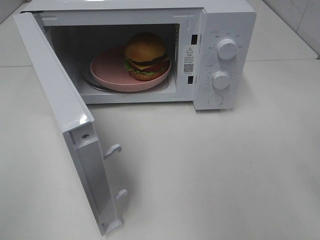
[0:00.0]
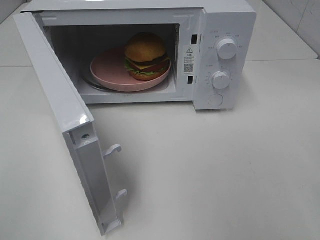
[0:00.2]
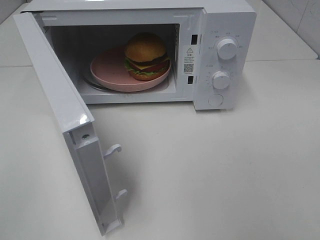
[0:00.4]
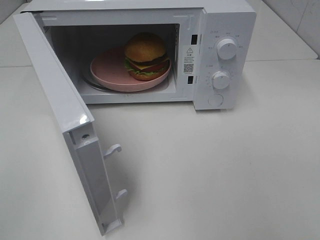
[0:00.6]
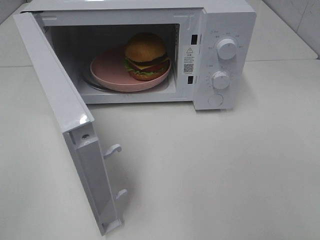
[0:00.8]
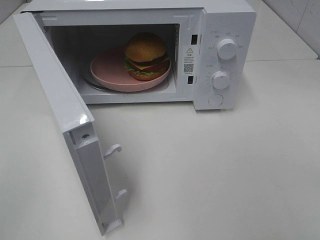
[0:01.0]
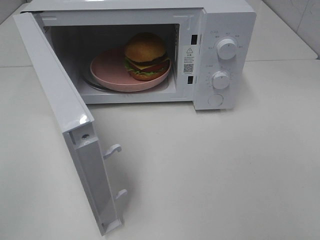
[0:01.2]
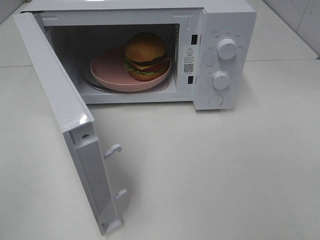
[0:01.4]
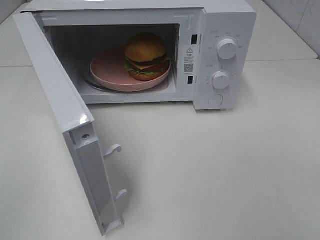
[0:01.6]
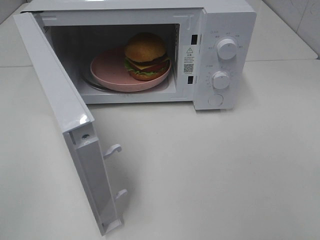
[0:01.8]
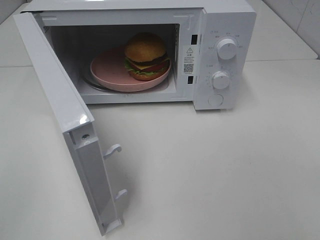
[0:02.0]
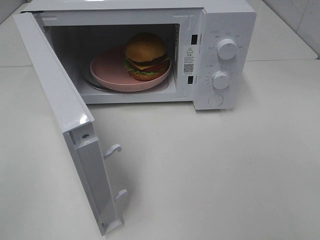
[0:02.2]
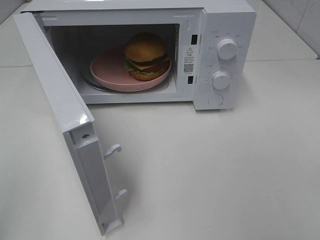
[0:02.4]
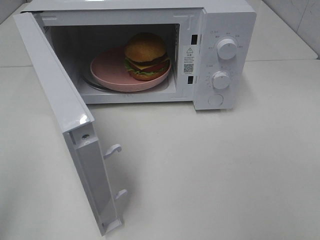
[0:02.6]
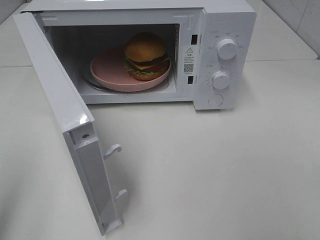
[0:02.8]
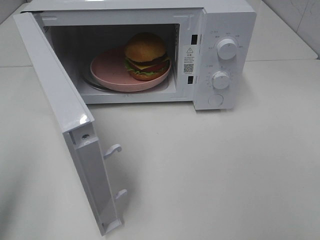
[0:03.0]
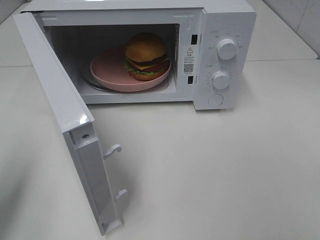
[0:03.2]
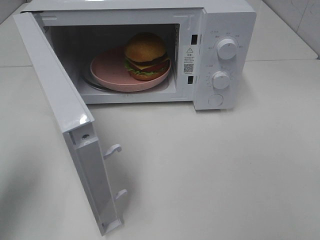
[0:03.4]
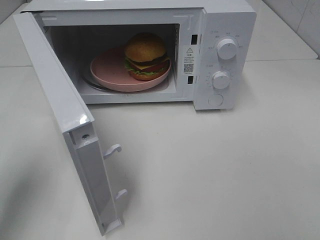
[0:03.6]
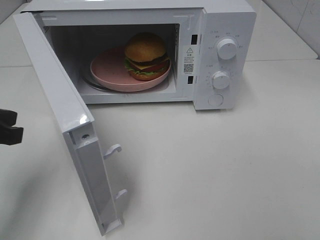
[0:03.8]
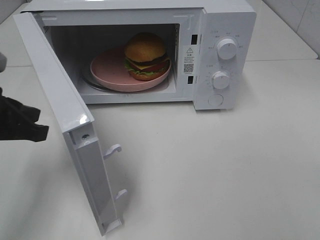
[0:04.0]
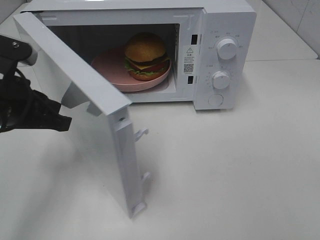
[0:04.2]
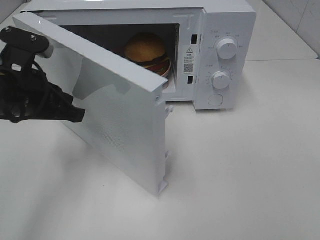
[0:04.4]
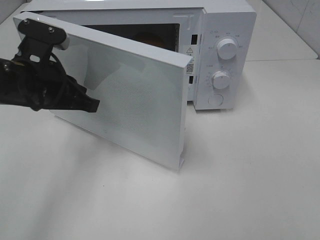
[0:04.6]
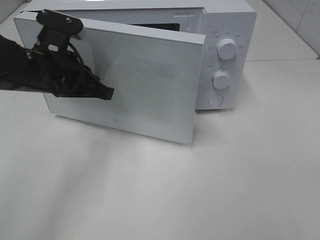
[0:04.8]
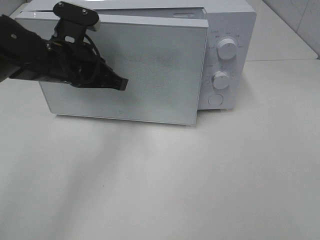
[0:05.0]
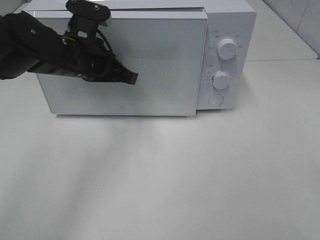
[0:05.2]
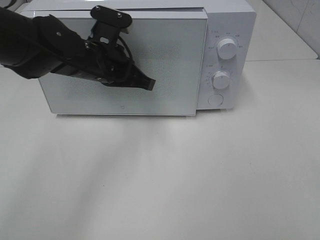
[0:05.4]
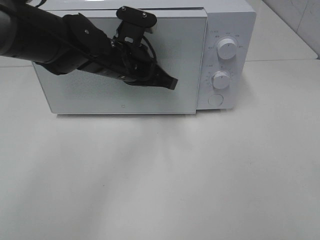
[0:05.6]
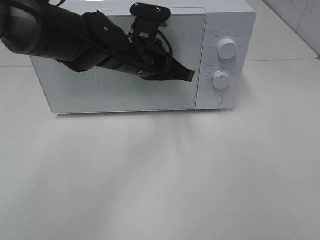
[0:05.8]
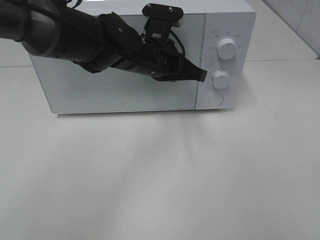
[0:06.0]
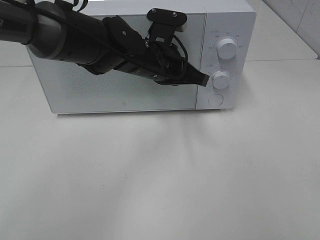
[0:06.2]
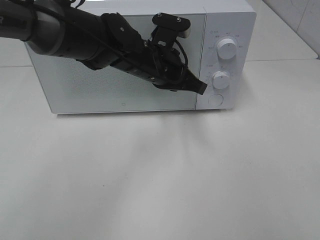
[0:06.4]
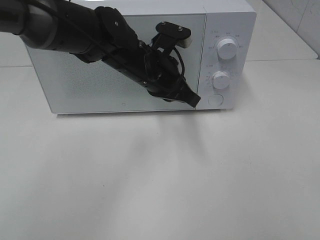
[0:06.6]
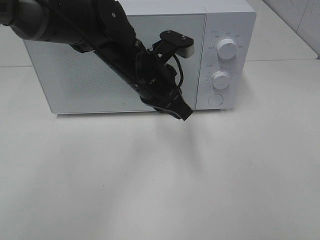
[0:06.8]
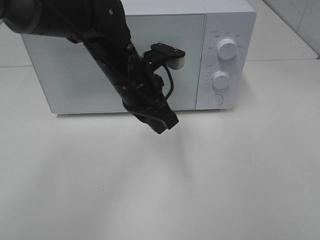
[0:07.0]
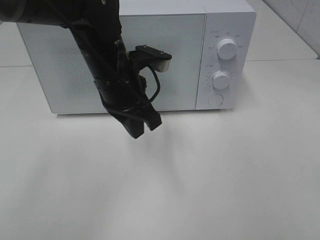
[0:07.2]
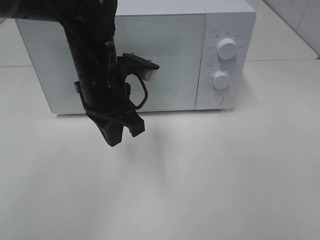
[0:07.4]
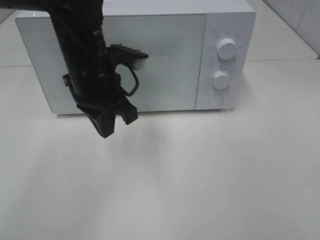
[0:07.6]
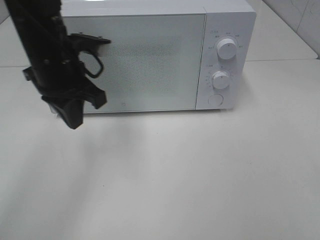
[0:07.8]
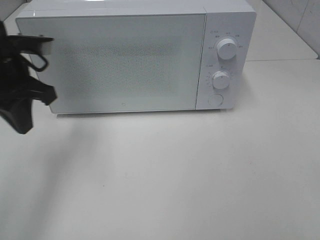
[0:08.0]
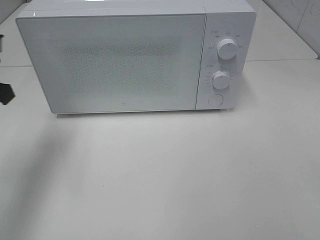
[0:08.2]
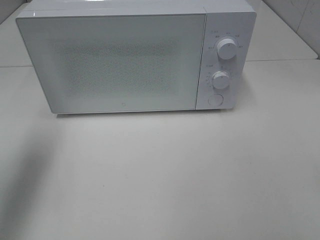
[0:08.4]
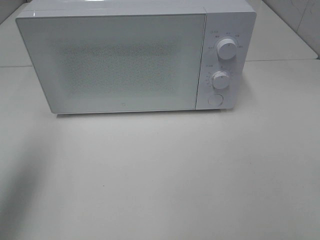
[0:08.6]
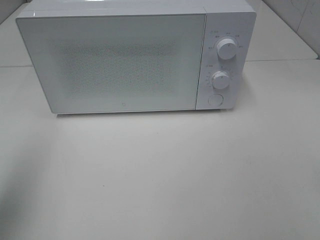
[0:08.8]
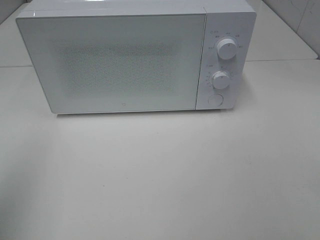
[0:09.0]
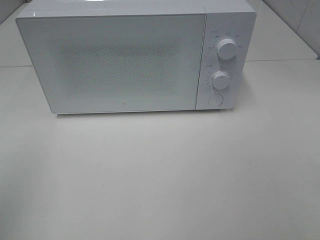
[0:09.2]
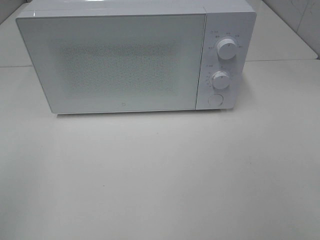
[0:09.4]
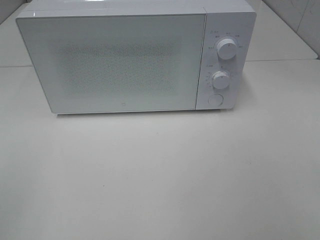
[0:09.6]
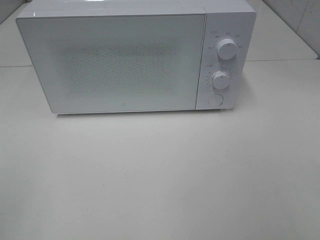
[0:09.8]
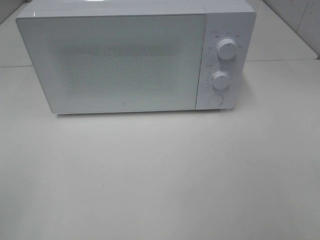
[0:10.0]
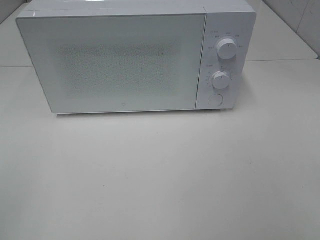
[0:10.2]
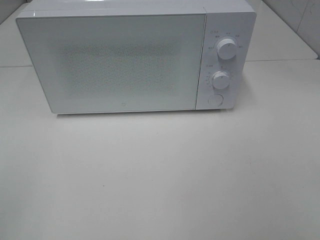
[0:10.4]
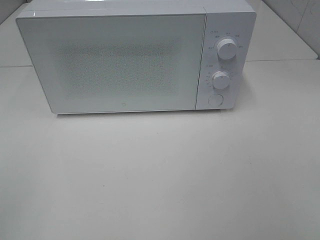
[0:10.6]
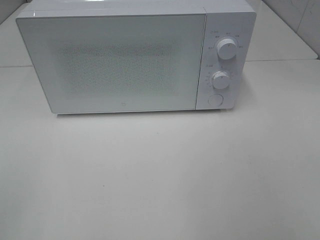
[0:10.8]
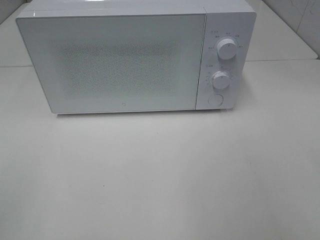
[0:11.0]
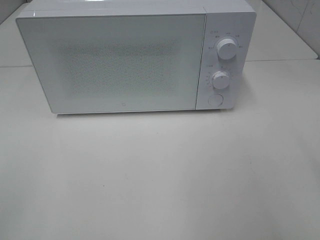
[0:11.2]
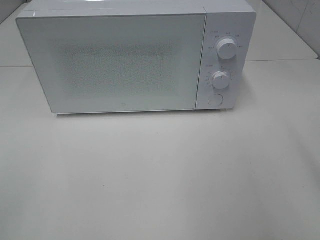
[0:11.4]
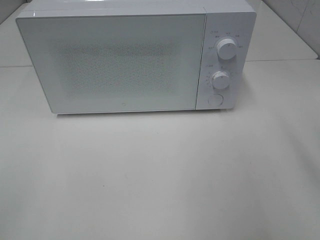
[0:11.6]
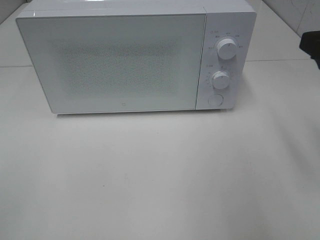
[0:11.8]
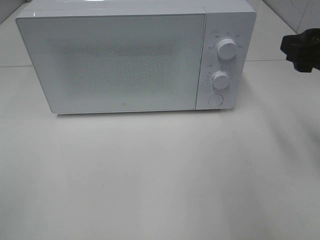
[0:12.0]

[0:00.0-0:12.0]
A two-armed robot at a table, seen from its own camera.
Task of the whole recording: Heat the burger.
Step, 0:00.0 to 0:06.4: Left hand: close the microwave door.
0:01.6 to 0:03.0: The left gripper moves forward, approximately 10 cm.
0:03.0 to 0:04.4: The left gripper is displaced forward, to the right and downward by some 20 cm.
0:04.4 to 0:06.0: The left gripper travels to the right and forward by roughly 20 cm.
0:06.0 to 0:07.6: The left gripper moves to the left and backward, roughly 10 cm.
0:07.6 to 0:09.0: The left gripper travels to the left, backward and upward by roughly 30 cm.
0:10.4 to 0:12.0: The right gripper heads forward, covering roughly 25 cm.

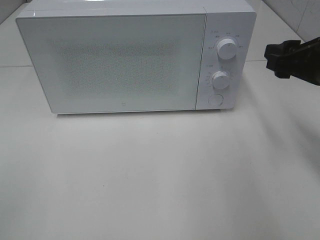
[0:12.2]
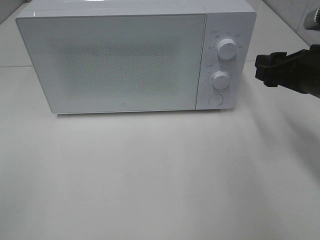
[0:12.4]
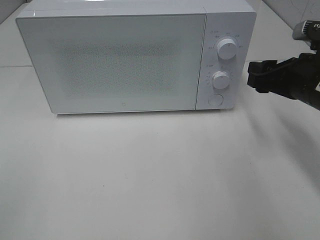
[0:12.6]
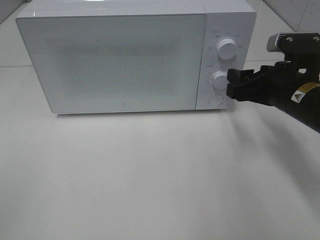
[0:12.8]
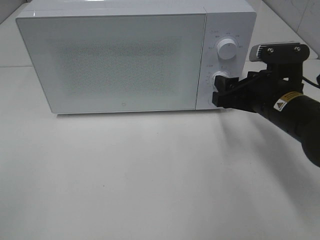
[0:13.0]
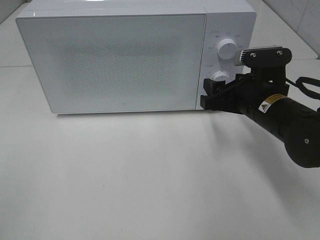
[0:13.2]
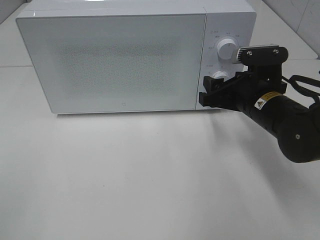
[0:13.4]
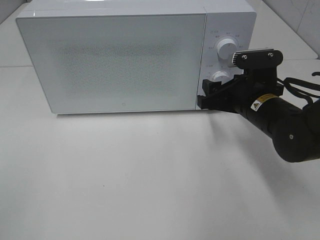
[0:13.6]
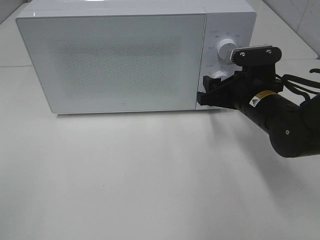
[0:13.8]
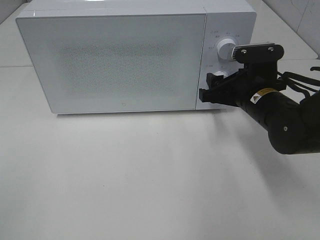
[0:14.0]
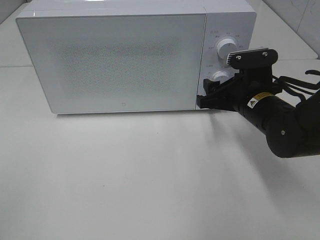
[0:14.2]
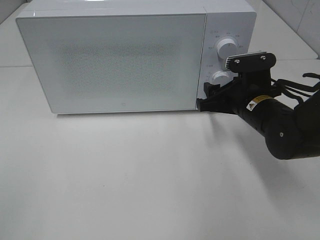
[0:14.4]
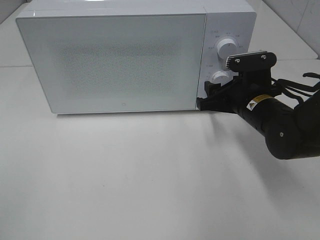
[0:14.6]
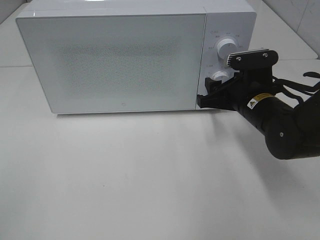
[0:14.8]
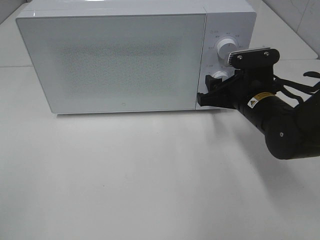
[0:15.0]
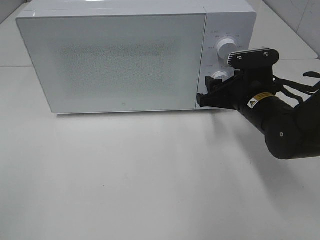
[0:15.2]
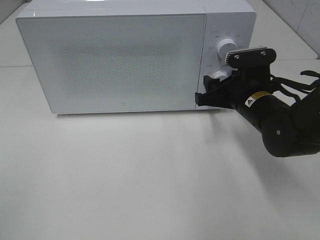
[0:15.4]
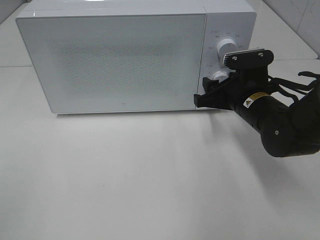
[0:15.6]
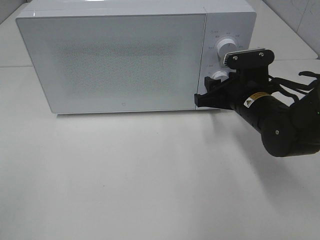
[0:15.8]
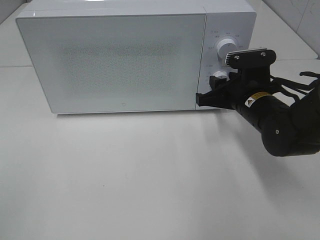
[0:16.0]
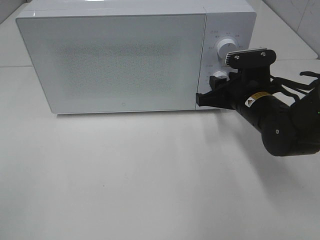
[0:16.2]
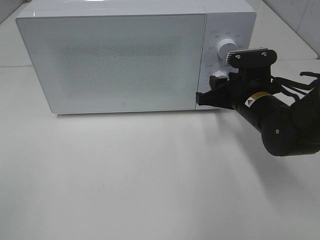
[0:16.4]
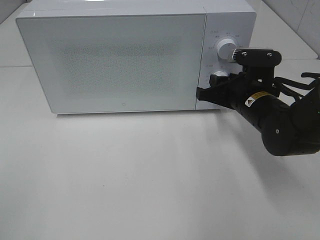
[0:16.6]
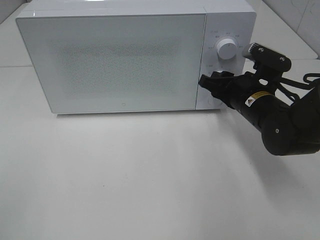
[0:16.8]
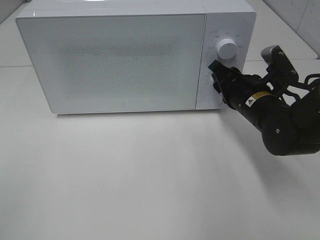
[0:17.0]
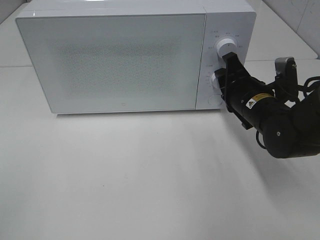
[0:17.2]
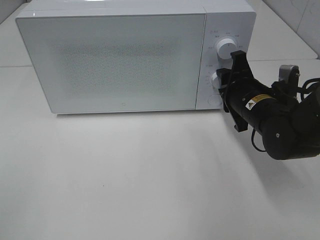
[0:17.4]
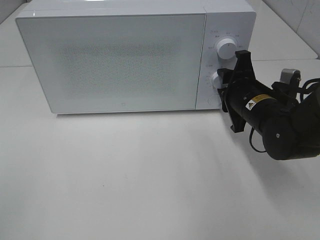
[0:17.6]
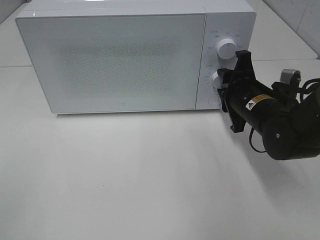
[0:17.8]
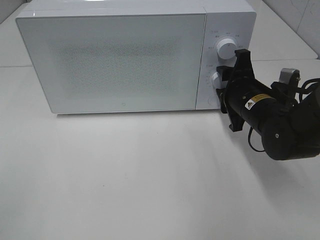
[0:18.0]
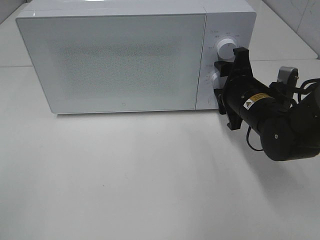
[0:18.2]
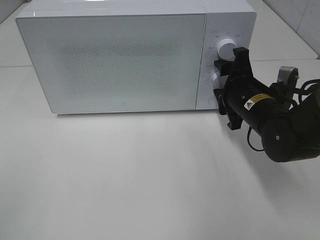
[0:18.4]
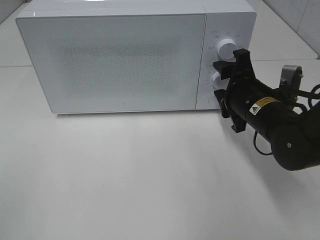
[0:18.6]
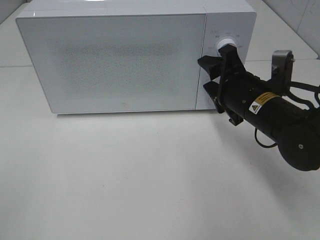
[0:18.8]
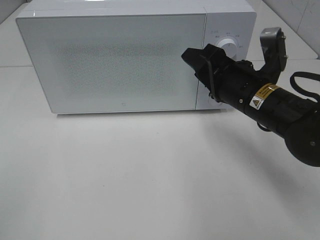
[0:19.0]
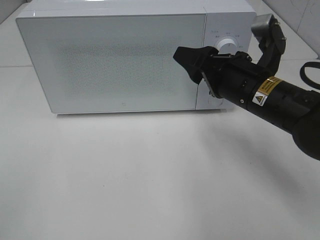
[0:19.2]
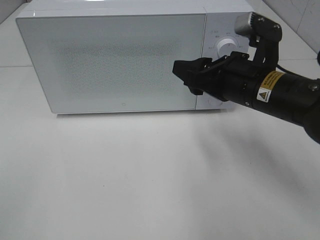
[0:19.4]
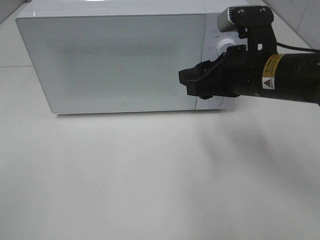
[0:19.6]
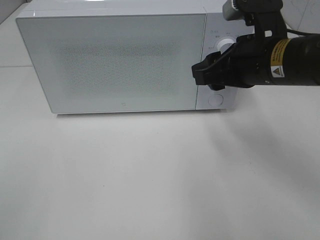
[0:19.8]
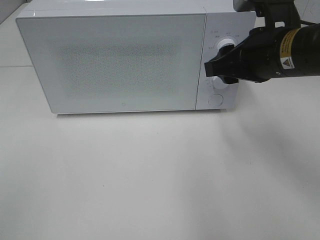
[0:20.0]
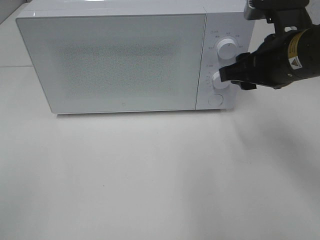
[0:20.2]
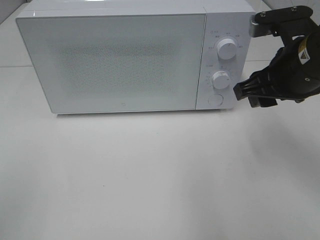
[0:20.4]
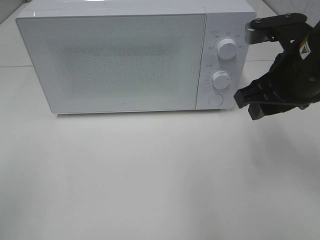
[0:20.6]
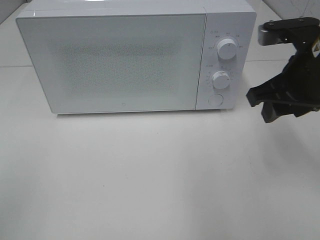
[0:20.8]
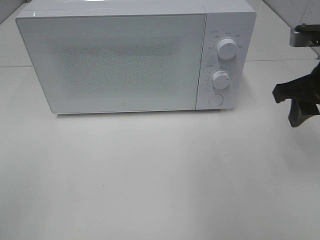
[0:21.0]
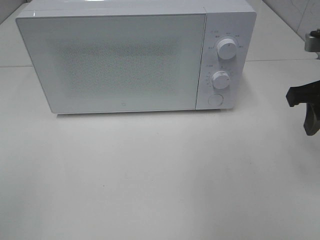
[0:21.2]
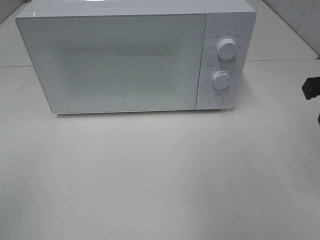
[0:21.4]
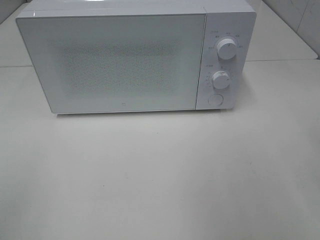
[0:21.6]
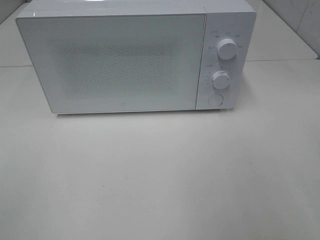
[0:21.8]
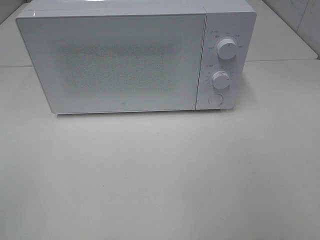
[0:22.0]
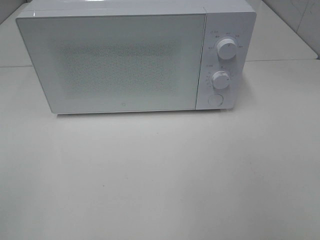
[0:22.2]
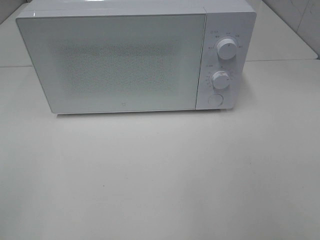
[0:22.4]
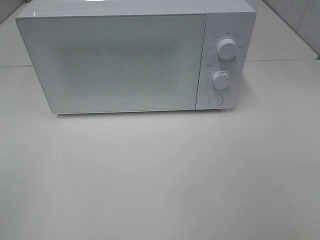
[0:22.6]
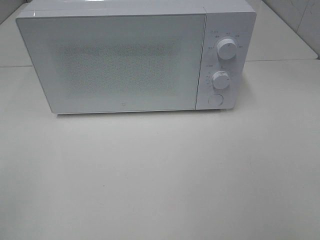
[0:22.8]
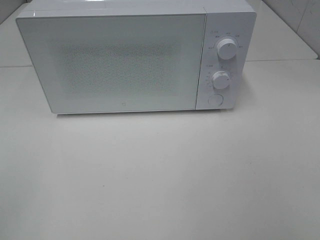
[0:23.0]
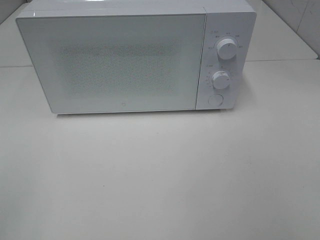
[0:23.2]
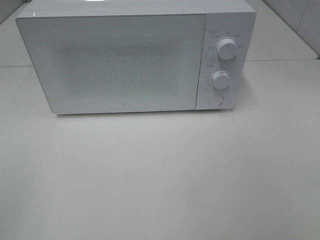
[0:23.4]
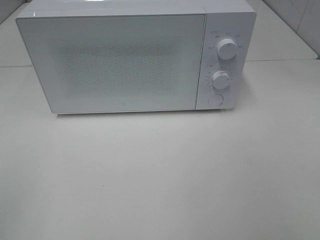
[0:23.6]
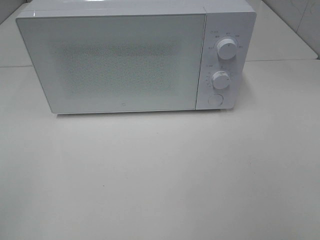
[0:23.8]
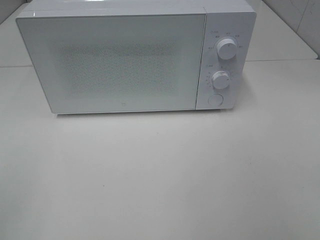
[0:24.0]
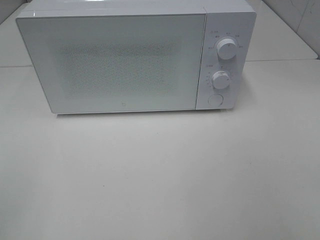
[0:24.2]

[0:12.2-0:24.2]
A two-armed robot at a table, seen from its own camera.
Task of the whole recording: Heat the burger.
Step, 0:12.2 to 0:18.4: Right hand: twist timer button.
0:12.2 to 0:13.8: The right gripper shifts roughly 15 cm downward, to the left and forward.
0:13.8 to 0:15.2: Neither gripper changes place.
0:15.2 to 0:16.6: The grippers make only small movements.
0:18.2 to 0:19.8: The right gripper is displaced upward by approximately 10 cm.
0:19.8 to 0:21.2: The right gripper shifts some 10 cm to the right.
0:21.2 to 0:22.6: The right gripper heads backward, covering about 25 cm.
